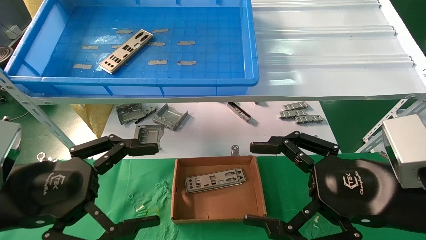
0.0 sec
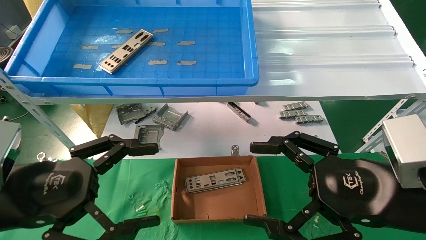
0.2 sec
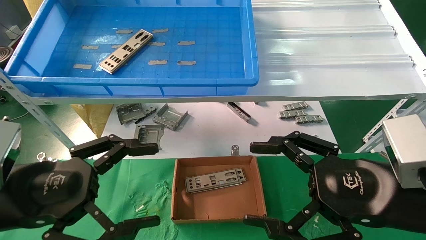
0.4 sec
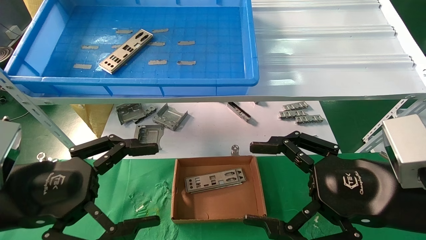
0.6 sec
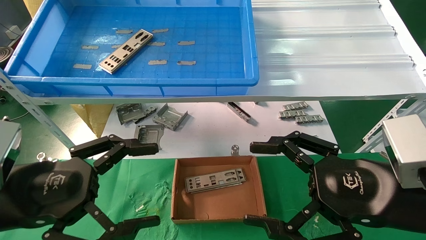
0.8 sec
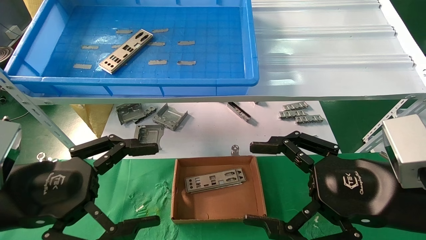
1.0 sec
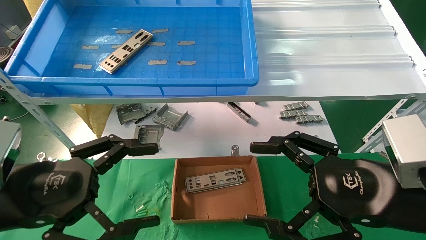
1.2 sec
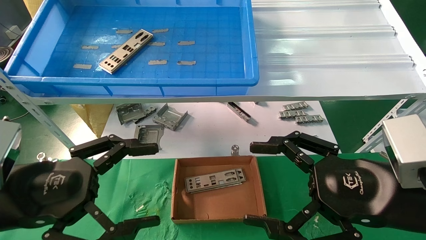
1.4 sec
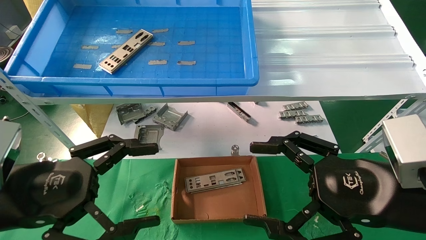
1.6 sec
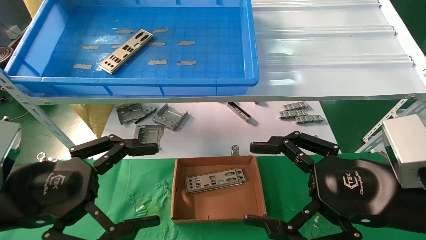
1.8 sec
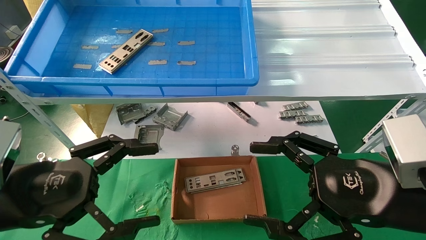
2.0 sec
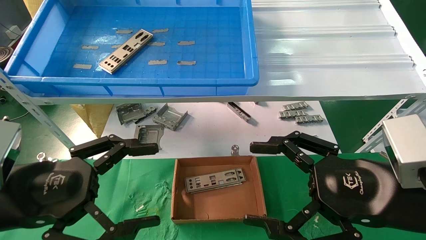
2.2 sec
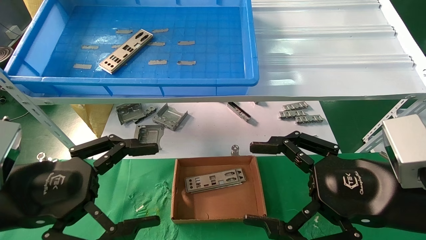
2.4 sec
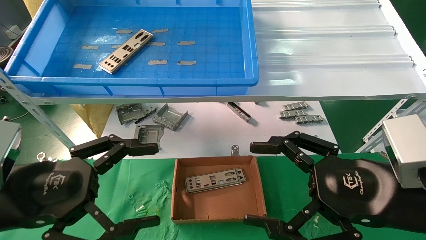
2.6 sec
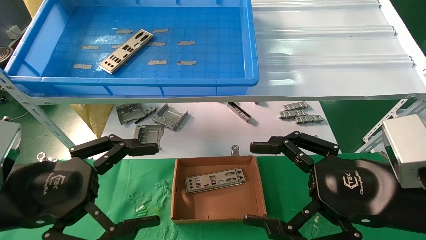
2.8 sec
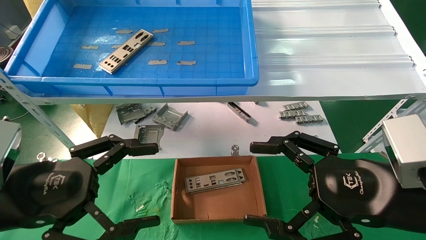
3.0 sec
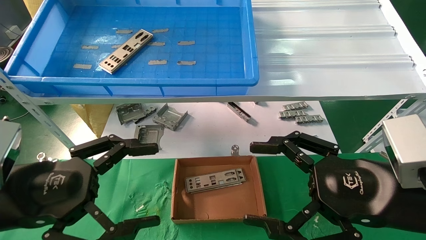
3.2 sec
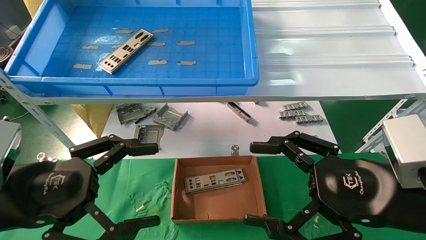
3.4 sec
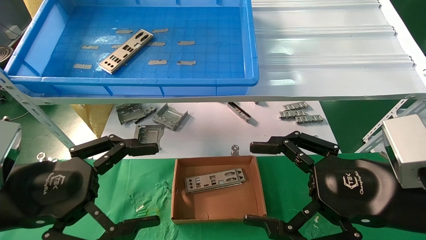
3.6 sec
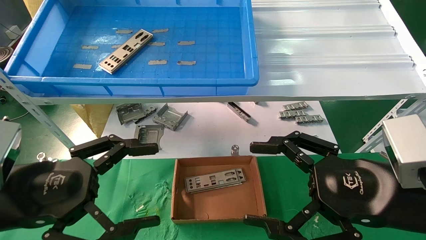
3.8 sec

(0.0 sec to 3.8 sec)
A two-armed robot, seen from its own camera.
Task of the whole recording: pick up the parts on the tray and put them in the cardboard box.
0.0 sec - 3.8 sec: The two grippers keep their place.

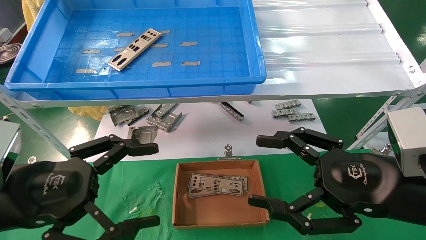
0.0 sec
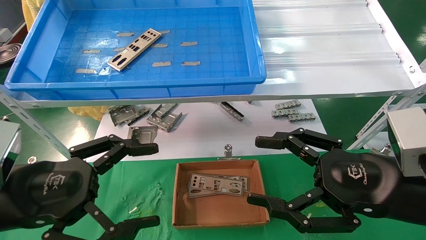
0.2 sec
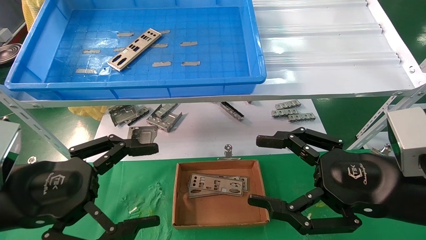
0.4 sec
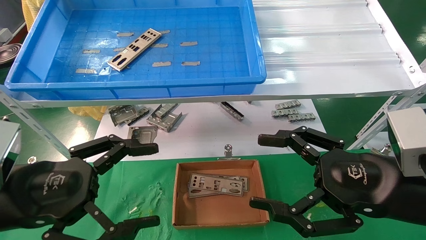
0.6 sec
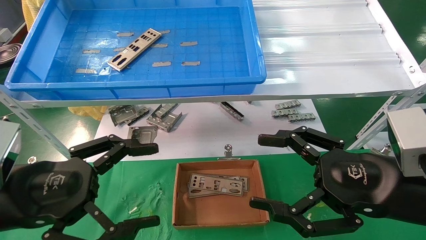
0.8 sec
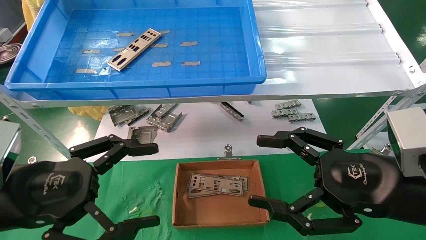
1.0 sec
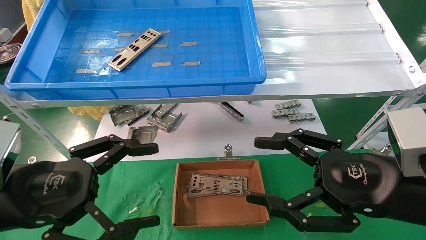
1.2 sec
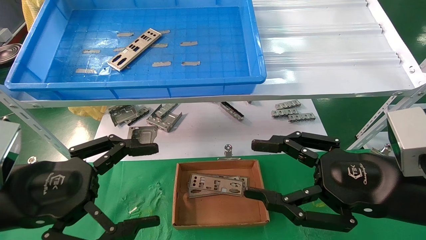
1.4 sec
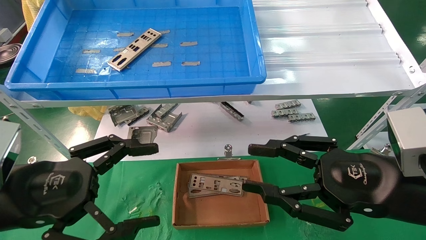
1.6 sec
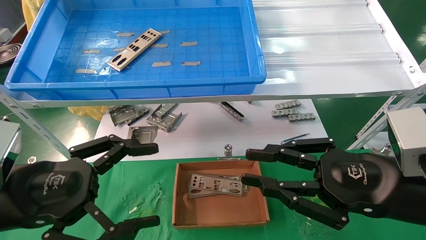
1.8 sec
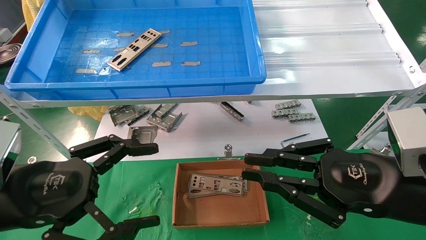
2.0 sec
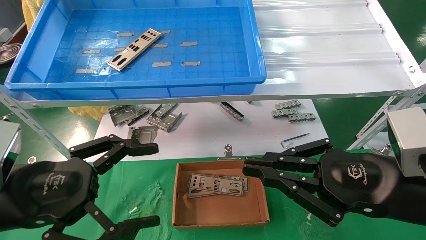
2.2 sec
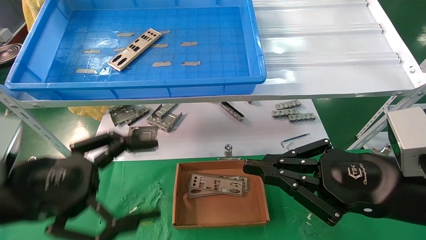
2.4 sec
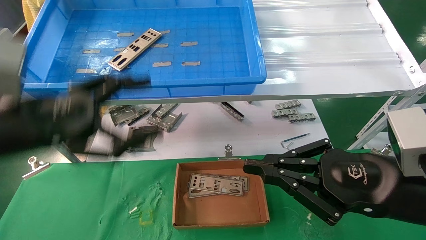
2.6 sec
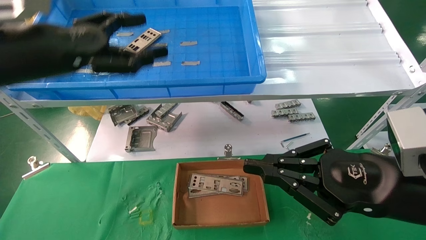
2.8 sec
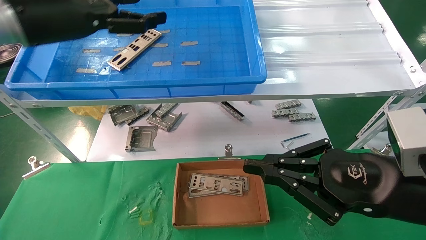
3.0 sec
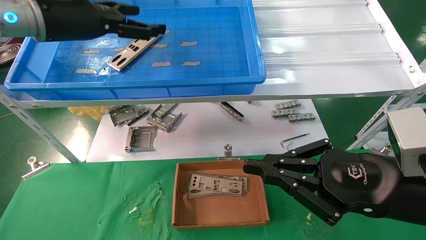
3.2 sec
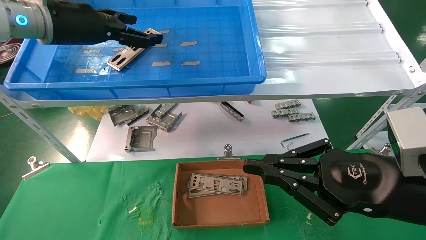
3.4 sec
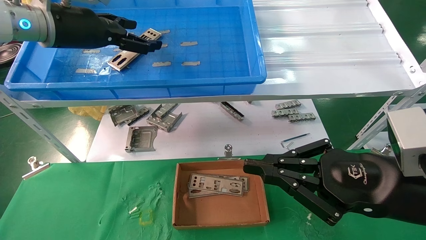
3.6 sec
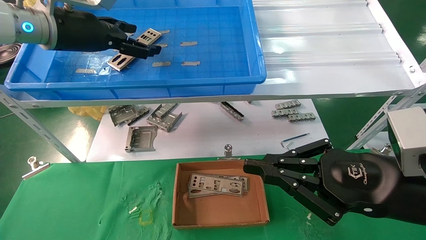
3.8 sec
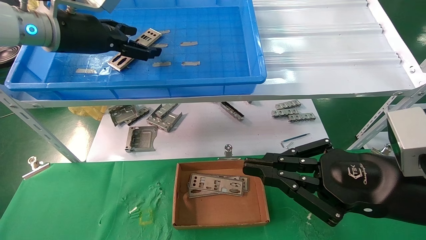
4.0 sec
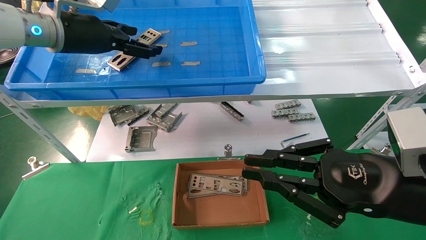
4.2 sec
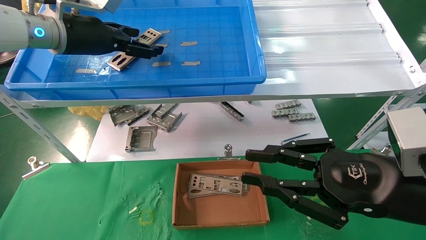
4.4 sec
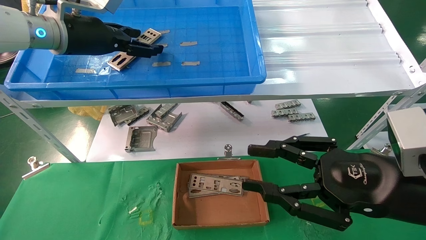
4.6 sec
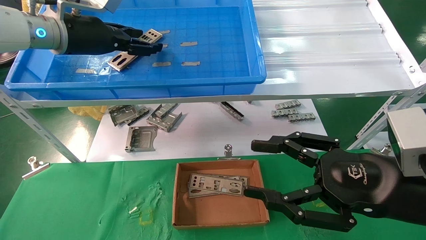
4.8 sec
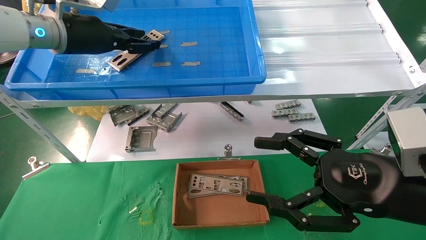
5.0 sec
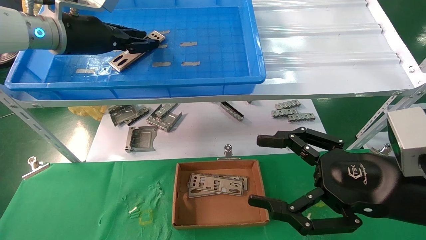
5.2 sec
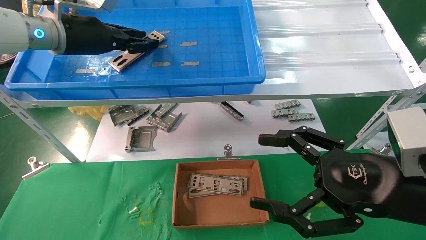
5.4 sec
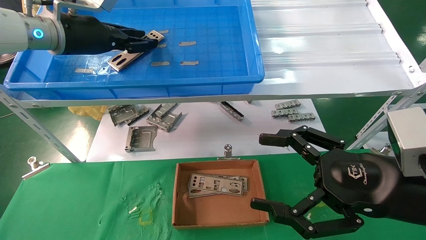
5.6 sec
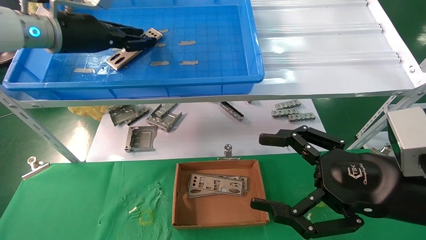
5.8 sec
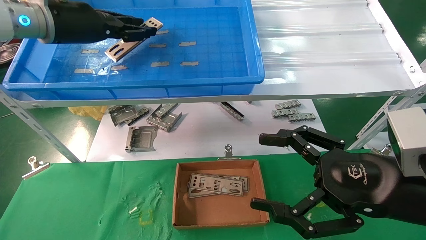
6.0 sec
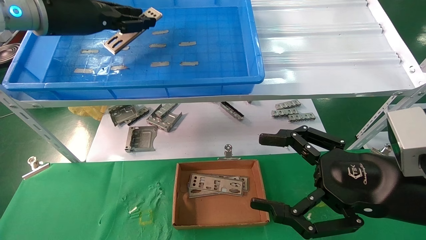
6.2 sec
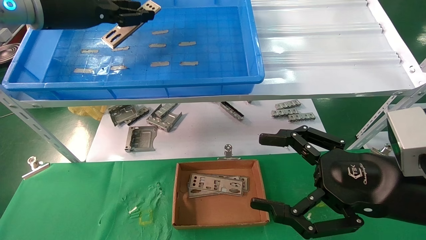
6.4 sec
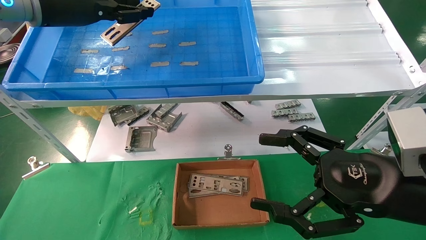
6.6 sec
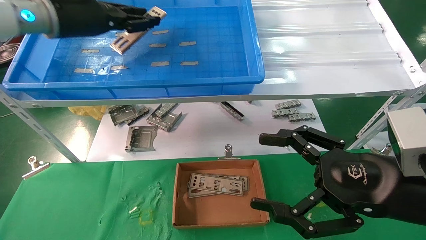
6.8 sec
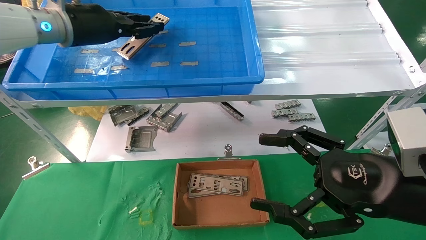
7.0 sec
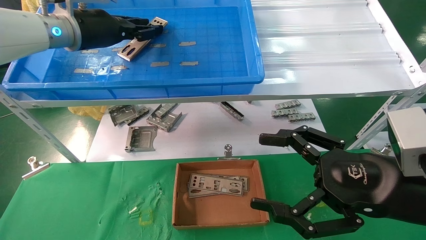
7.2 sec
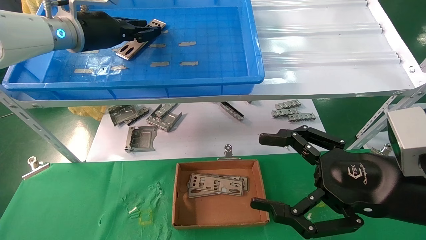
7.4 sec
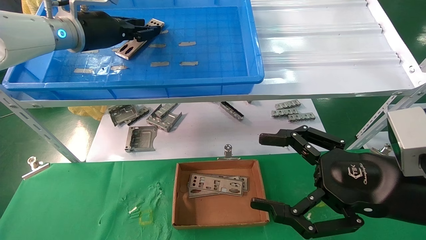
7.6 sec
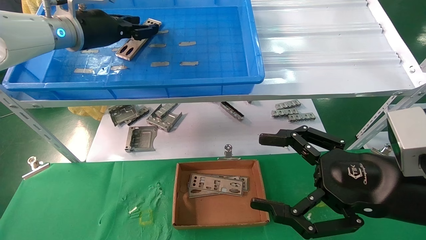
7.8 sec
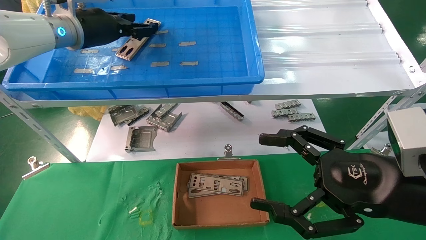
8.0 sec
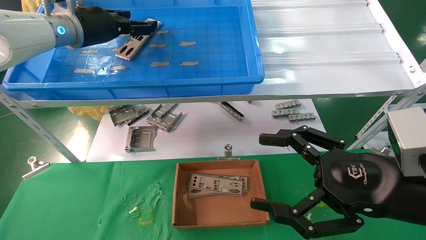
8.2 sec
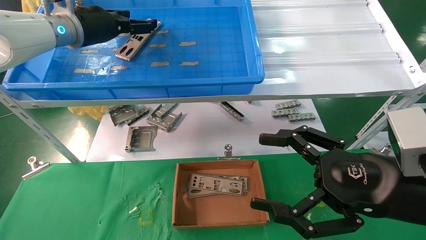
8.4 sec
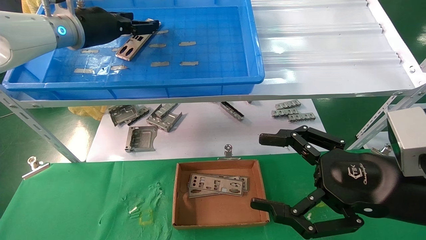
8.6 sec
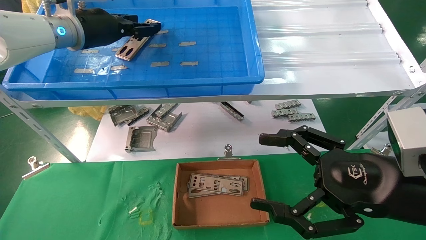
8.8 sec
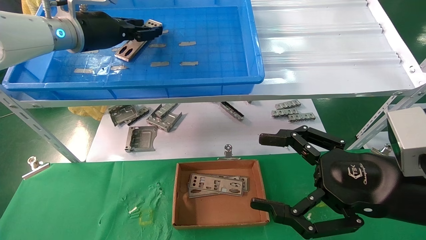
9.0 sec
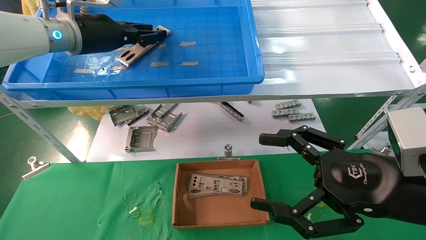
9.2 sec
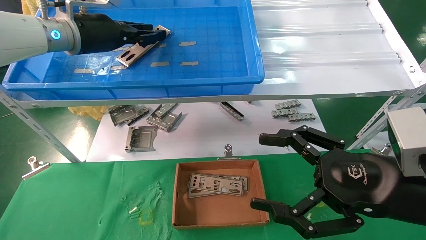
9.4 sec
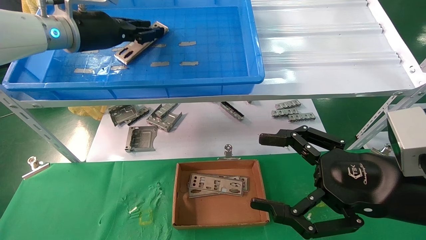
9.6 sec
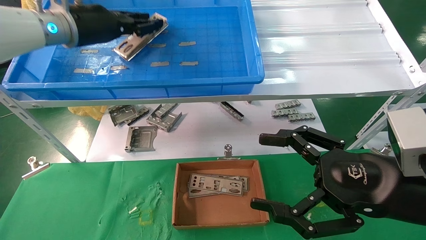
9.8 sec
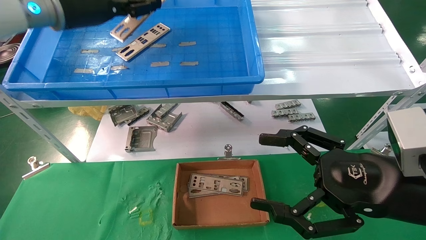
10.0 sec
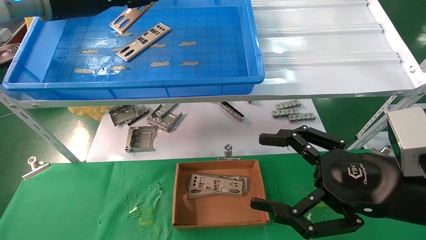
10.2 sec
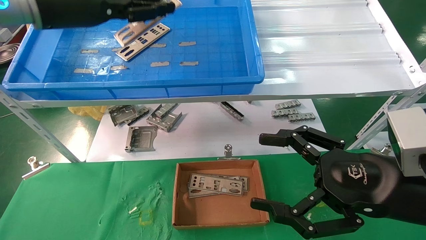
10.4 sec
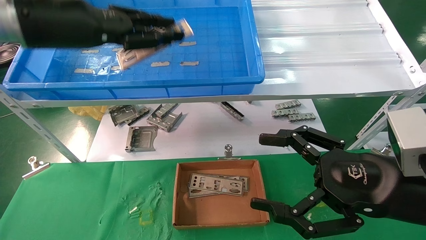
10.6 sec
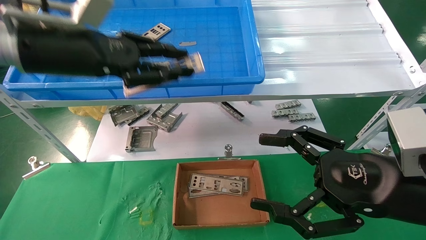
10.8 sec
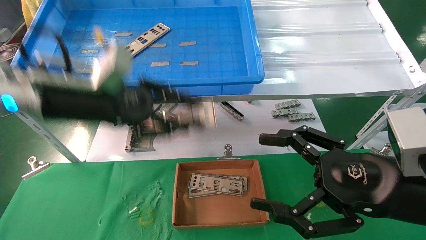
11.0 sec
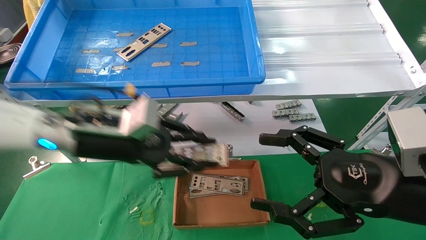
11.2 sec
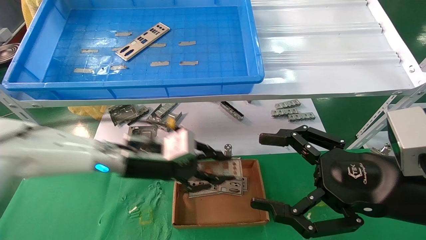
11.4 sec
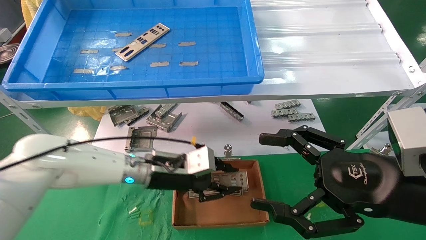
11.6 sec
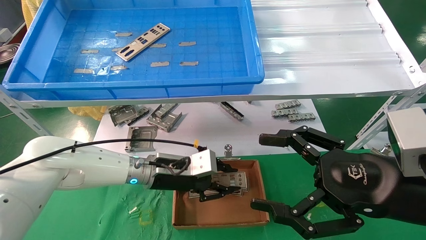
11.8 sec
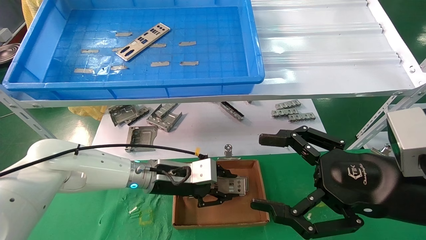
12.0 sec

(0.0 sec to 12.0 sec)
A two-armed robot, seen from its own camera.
Task of the whole recording: pick up the parts on the tray and put them in the cardboard box.
Step, 2.8 sec - 9.6 sec: Pick up the IO bracket from the container box.
0.0 sec - 1.6 sec: Neither gripper changes place.
1.6 sec - 3.0 sec: The left gripper heads upward and forward, covering about 25 cm, while the right gripper closes its fingers.
3.0 sec - 4.4 sec: The left gripper travels forward by about 5 cm.
4.4 sec - 6.0 sec: The left gripper closes, while the right gripper opens.
6.0 sec - 7.6 sec: The grippers make only small movements.
7.6 sec - 9.0 sec: The two grippers keep their place.
9.0 sec - 10.4 sec: The left gripper shifts some 10 cm backward, and closes up.
10.4 sec - 12.0 sec: The left gripper travels downward and to the right by roughly 35 cm.

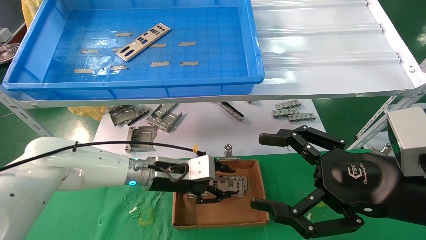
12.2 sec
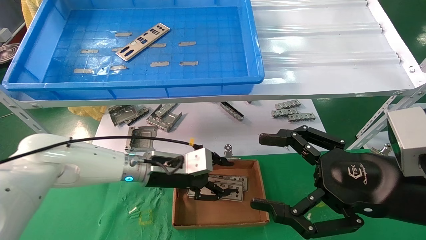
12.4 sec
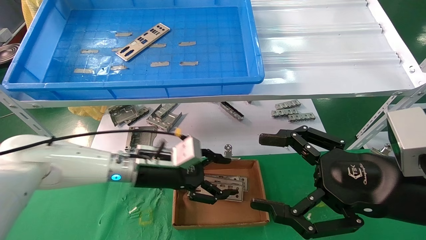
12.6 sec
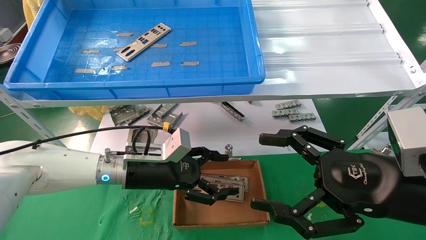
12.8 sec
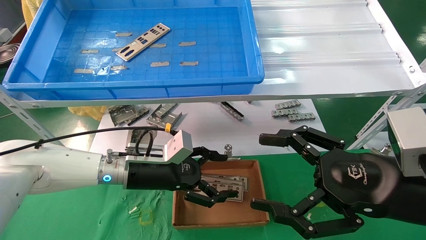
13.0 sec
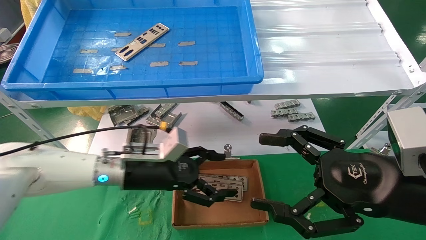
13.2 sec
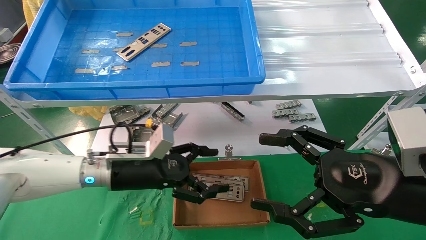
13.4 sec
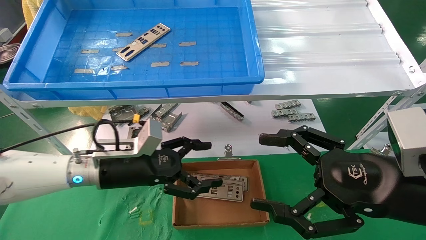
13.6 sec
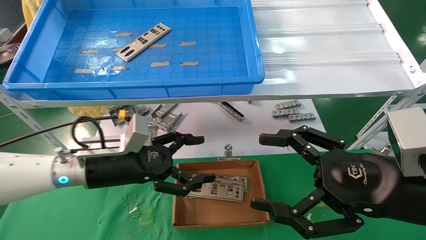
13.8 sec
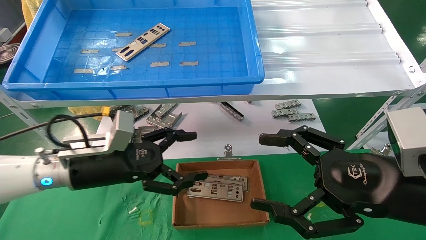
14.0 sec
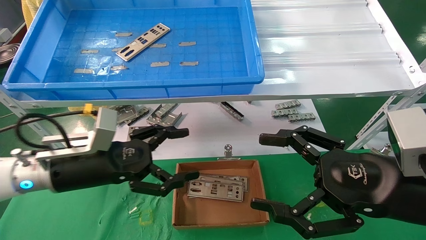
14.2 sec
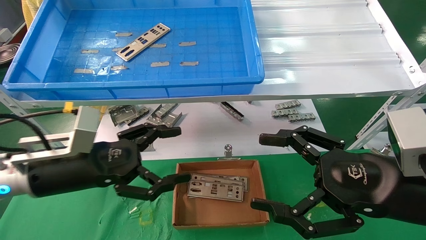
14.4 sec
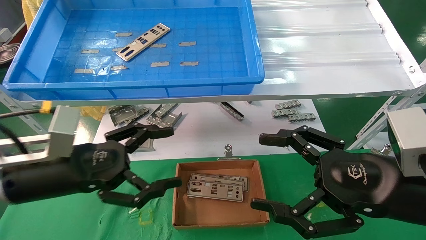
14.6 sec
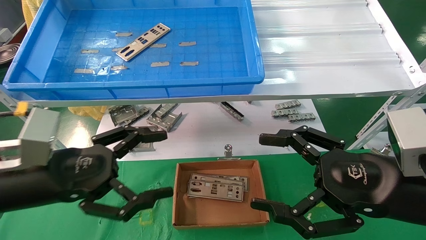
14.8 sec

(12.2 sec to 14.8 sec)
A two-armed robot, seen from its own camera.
Task of the whole recording: pick up the parts on the tray and put them in the cardboard box.
12.2 sec - 13.4 sec: The left gripper is displaced to the left by roughly 5 cm, and opens.
13.4 sec - 14.8 sec: The left gripper is displaced backward, to the left and upward by about 20 cm.
